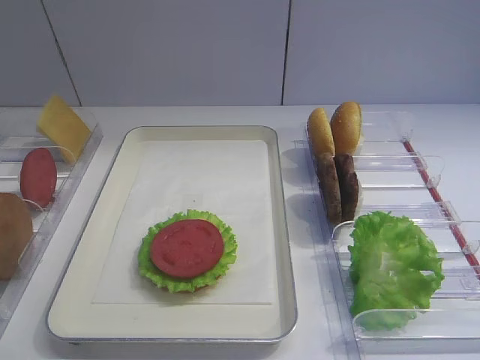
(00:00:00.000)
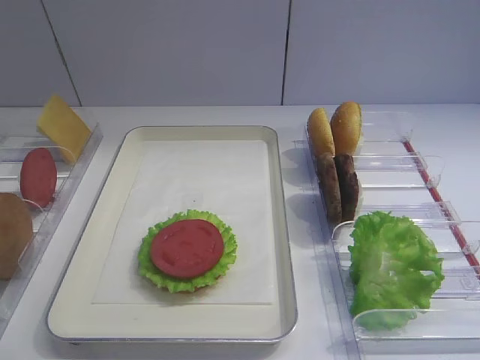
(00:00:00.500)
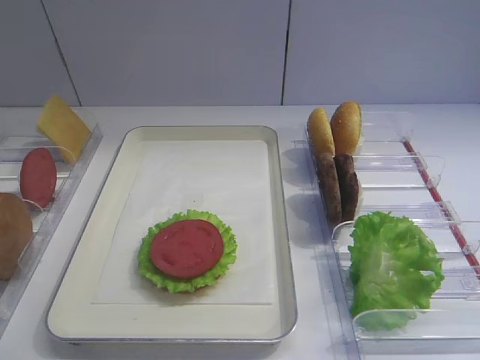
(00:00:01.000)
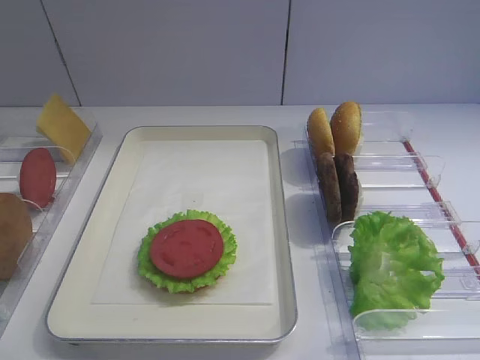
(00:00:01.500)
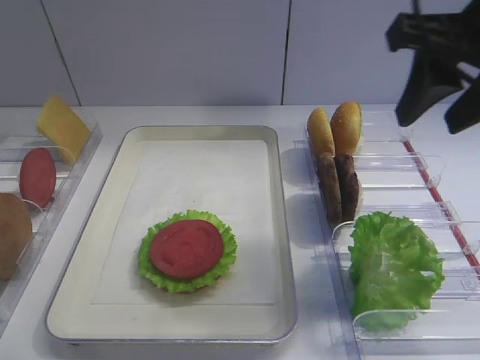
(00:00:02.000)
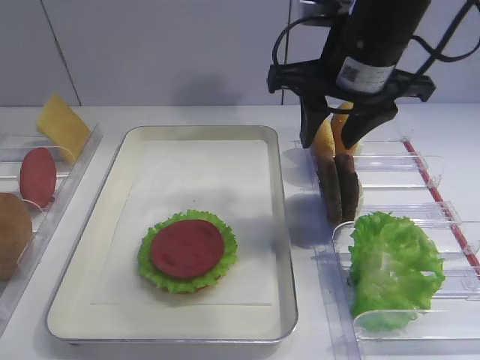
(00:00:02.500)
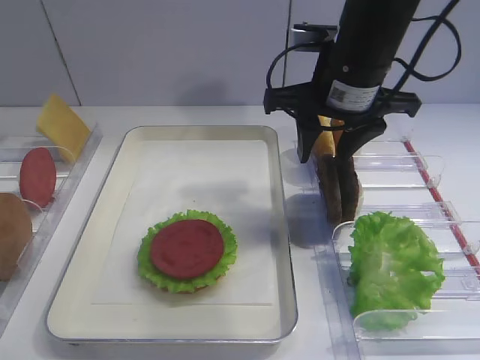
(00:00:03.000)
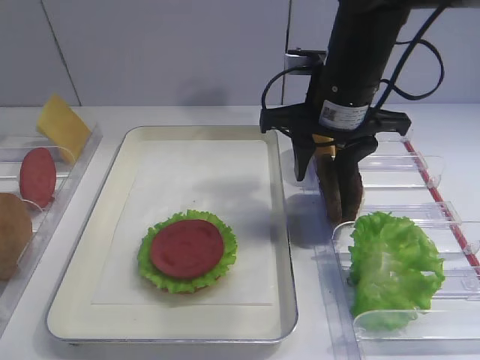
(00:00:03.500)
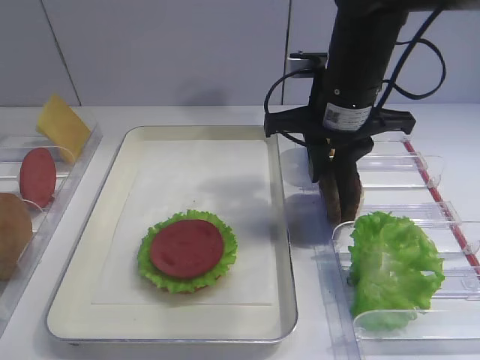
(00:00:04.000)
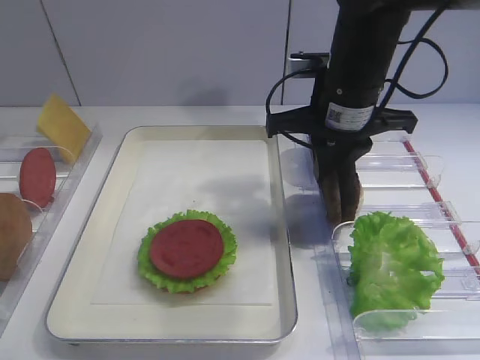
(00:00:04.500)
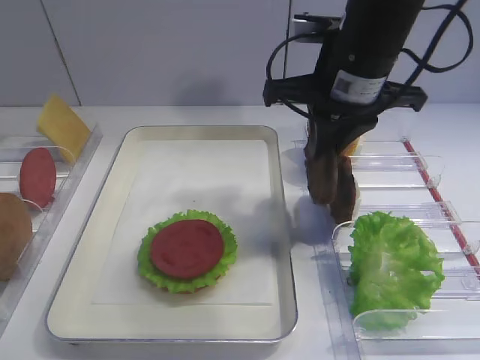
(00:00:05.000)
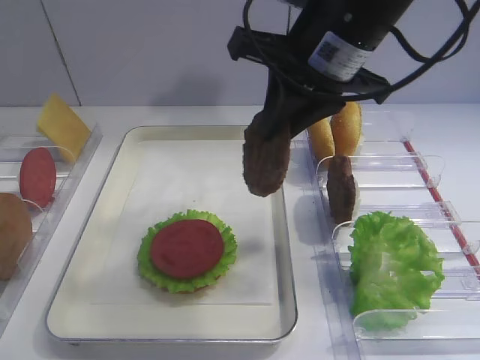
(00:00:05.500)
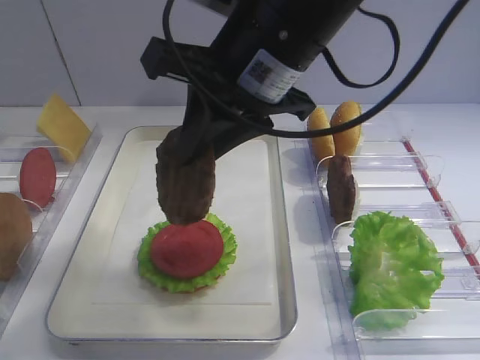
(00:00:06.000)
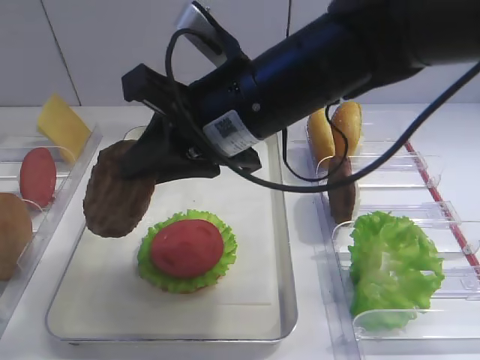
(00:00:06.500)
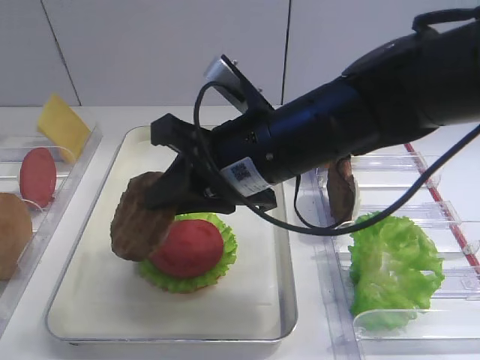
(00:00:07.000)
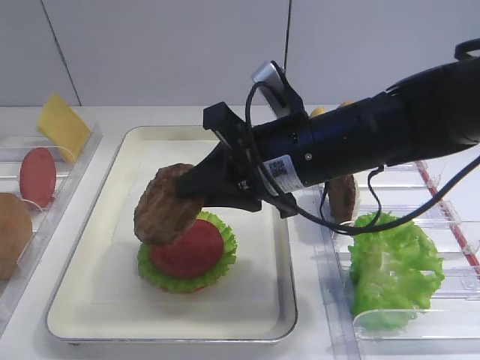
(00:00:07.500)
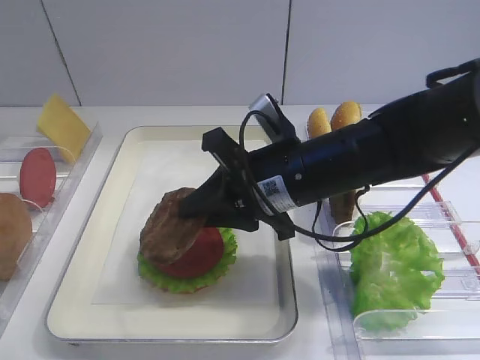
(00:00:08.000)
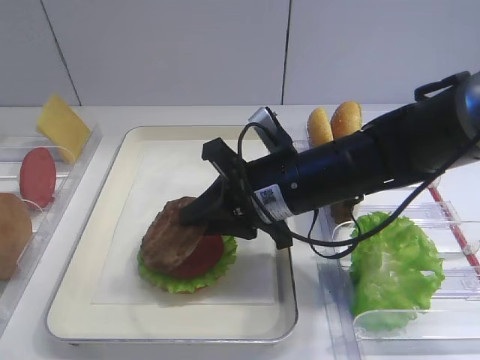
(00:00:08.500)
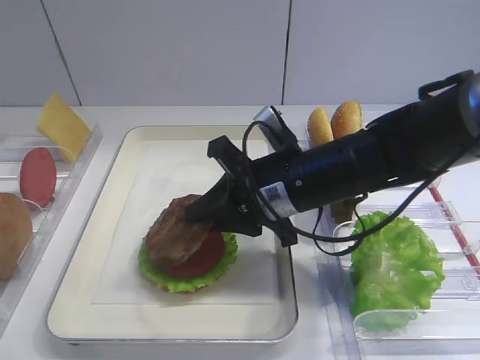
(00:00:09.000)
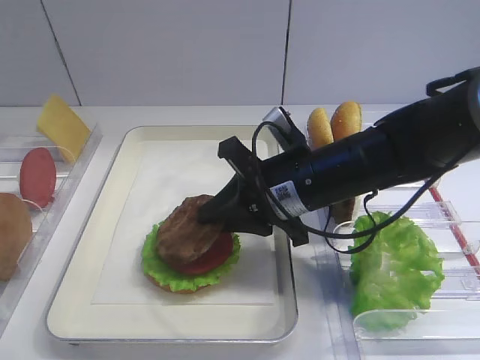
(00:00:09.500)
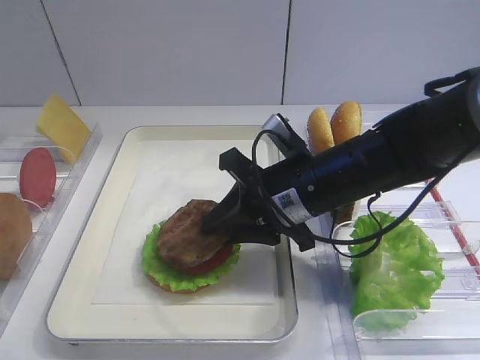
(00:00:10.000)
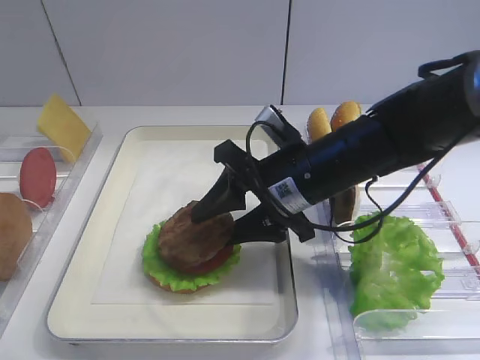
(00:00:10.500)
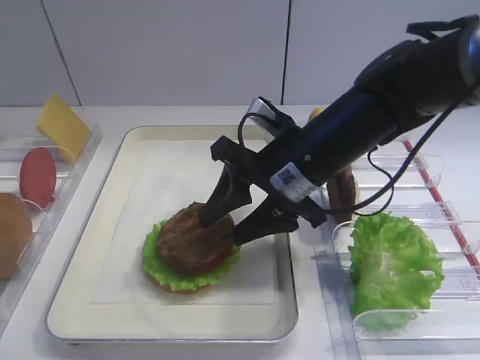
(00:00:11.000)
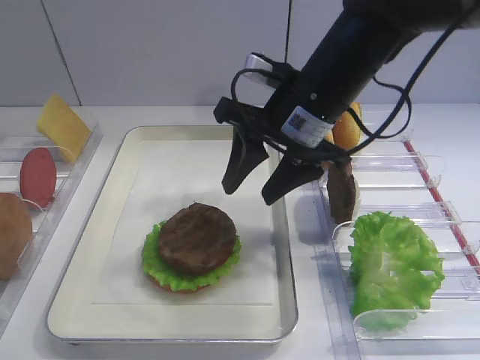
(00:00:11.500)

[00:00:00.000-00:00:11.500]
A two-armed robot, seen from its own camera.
Step, 00:00:00.000 to 00:00:05.000: Pick up the cutlet with the right gripper.
Step, 00:00:05.500 to 00:00:11.000: Place the cutlet on the tomato slice with the right gripper.
00:00:02.000 to 00:00:04.000: The right gripper goes some 15 cm downward, forward and to the left, and closes.
00:00:04.000 to 00:00:06.000: The right gripper is displaced upward, backward and to the left by about 15 cm.
00:00:06.000 to 00:00:07.500: The right gripper goes about 10 cm downward.
00:00:07.500 to 00:00:09.500: The right gripper goes about 5 cm downward.
00:00:09.500 to 00:00:11.500: The right gripper shifts approximately 10 cm upward, and opens its fingers.

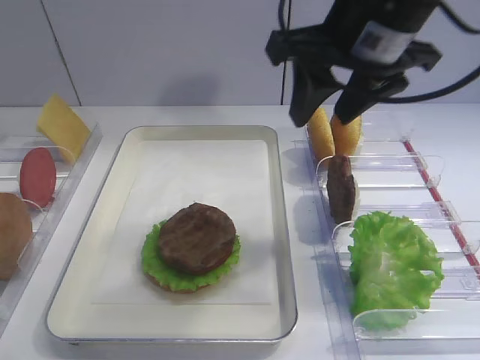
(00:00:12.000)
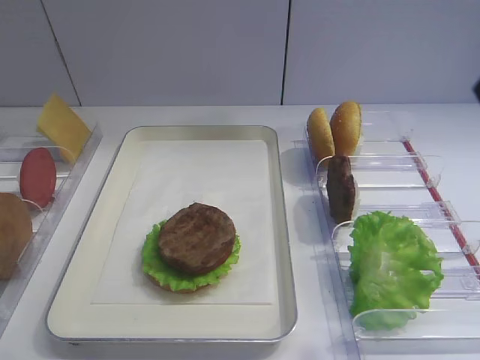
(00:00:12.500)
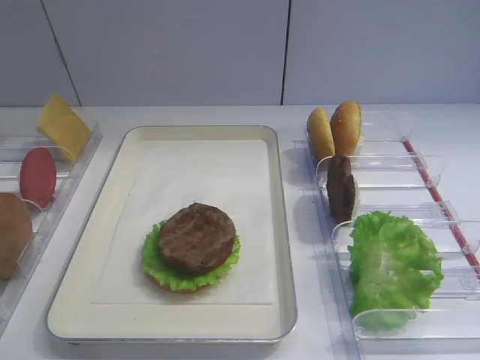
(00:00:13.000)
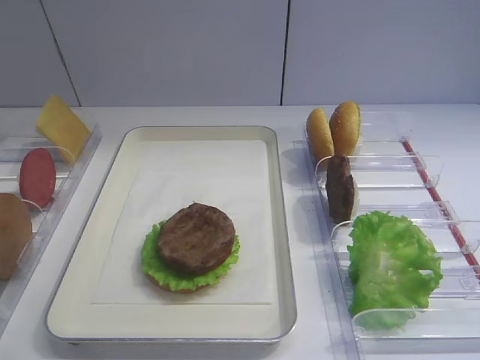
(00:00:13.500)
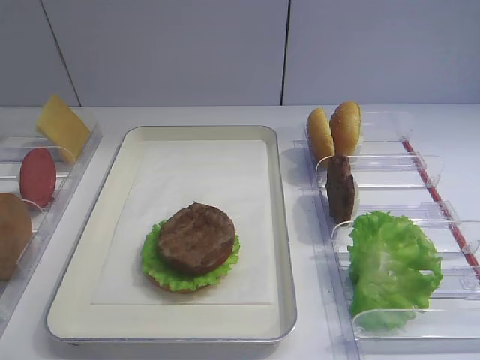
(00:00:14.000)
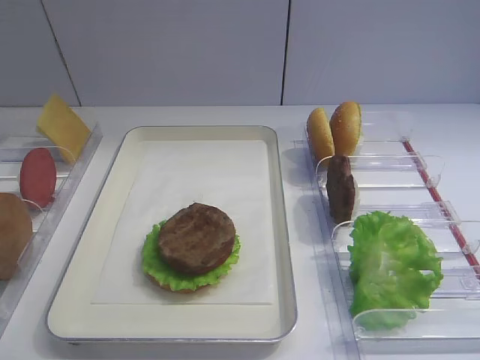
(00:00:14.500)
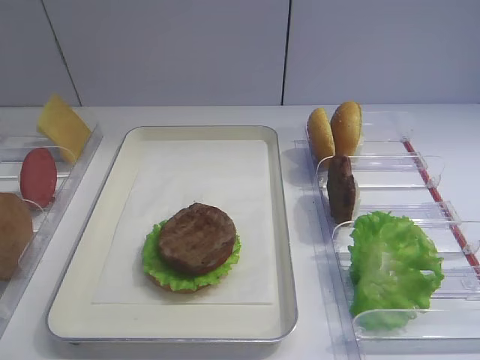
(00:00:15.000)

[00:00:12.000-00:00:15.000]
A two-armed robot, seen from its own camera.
00:00:12.000 to 00:00:13.500: The right gripper is displaced backward and to the right by some 35 cm, and closes its fingers.

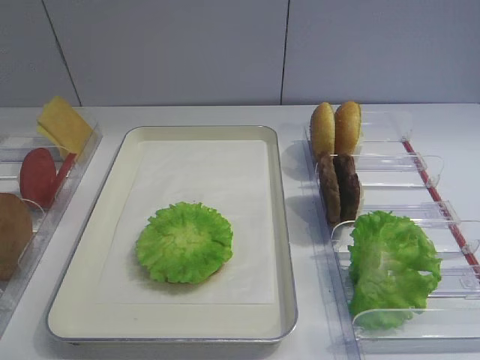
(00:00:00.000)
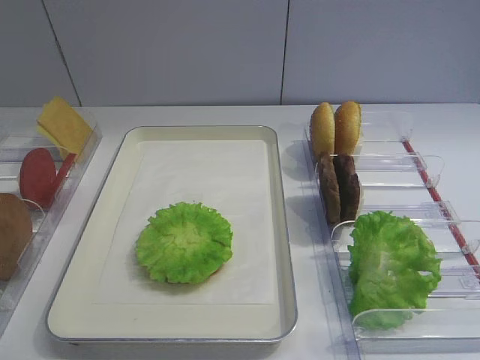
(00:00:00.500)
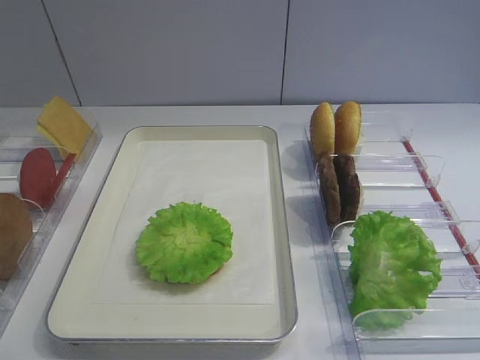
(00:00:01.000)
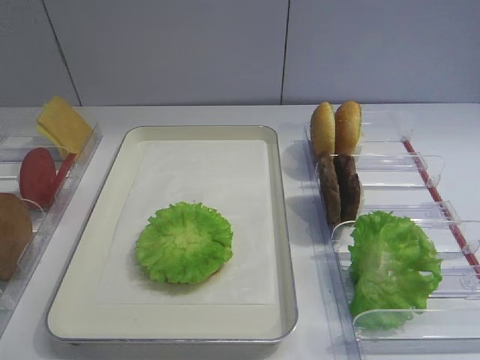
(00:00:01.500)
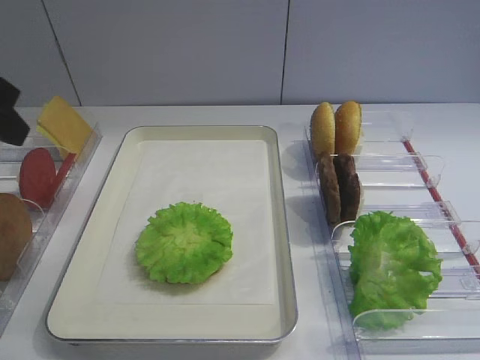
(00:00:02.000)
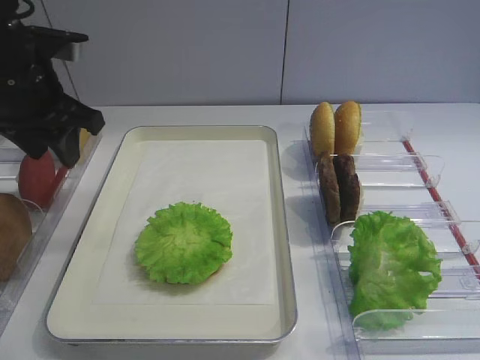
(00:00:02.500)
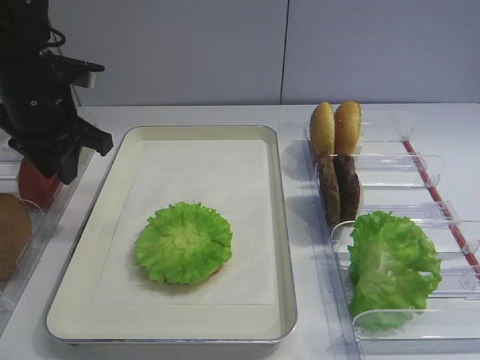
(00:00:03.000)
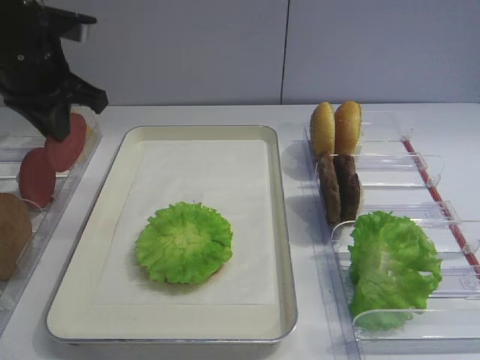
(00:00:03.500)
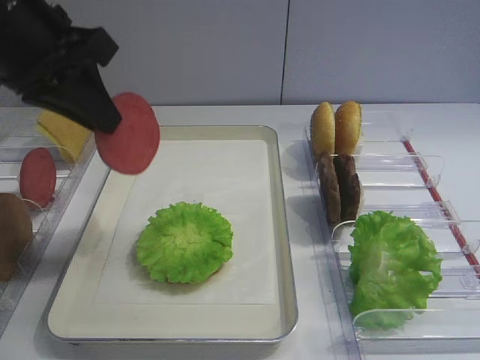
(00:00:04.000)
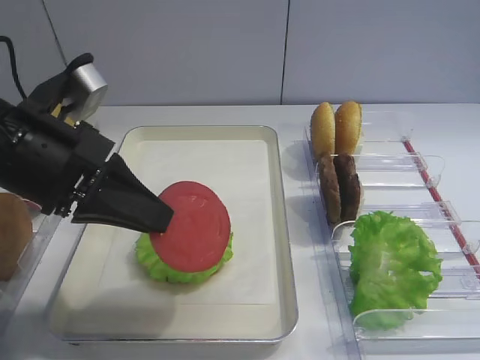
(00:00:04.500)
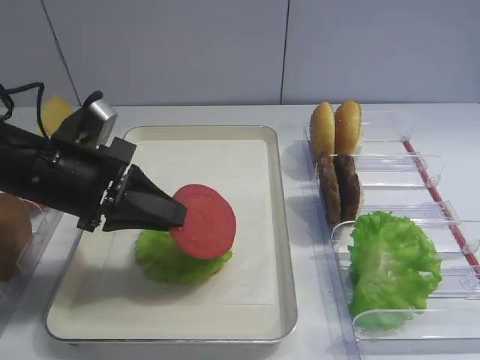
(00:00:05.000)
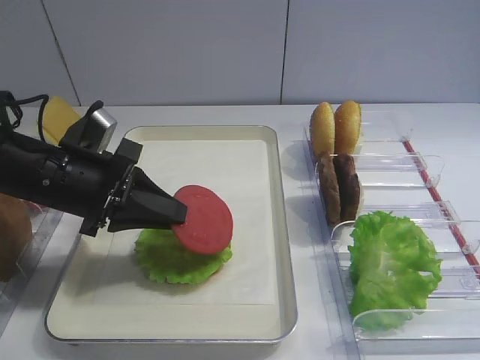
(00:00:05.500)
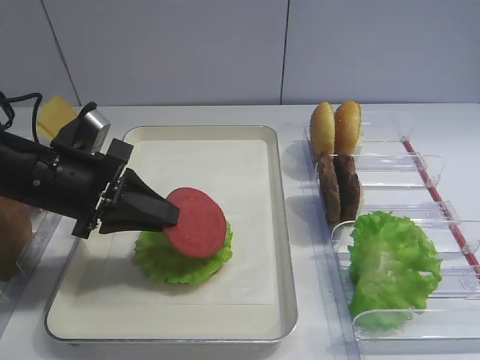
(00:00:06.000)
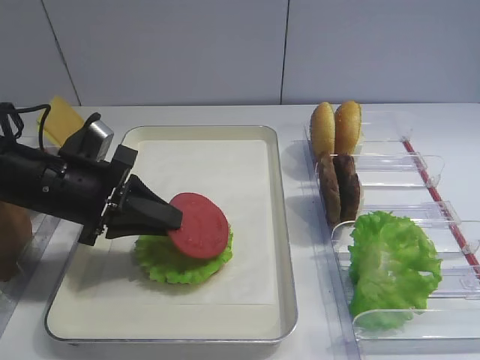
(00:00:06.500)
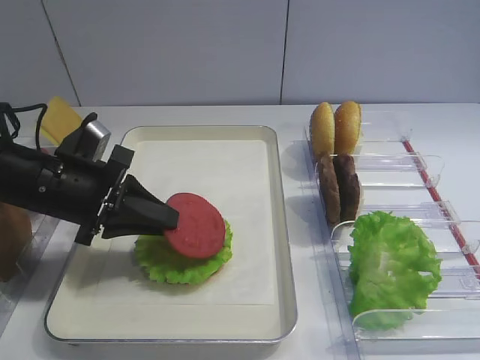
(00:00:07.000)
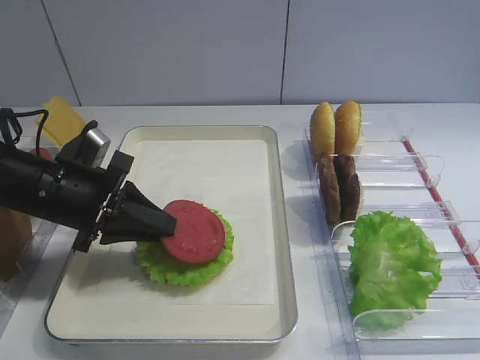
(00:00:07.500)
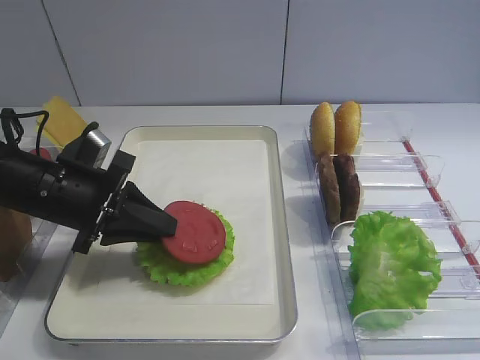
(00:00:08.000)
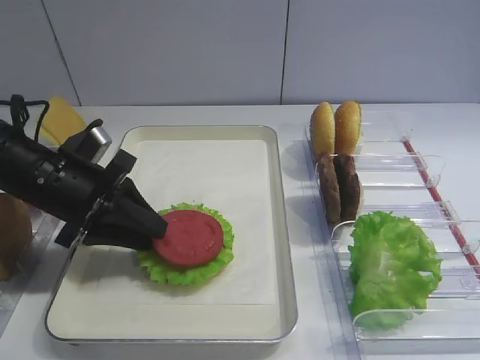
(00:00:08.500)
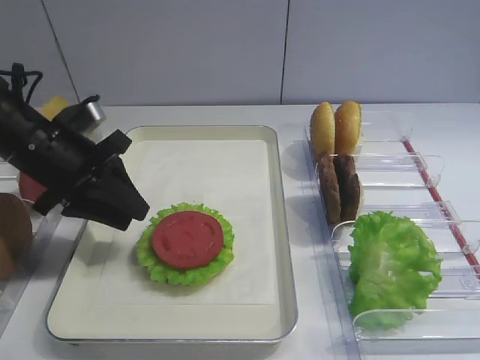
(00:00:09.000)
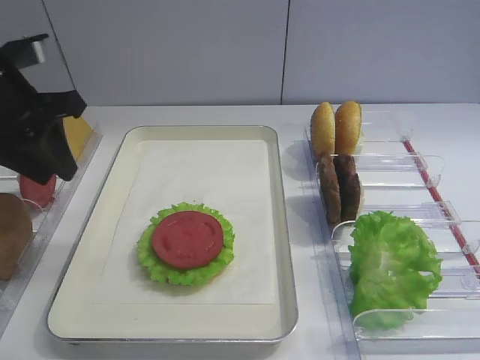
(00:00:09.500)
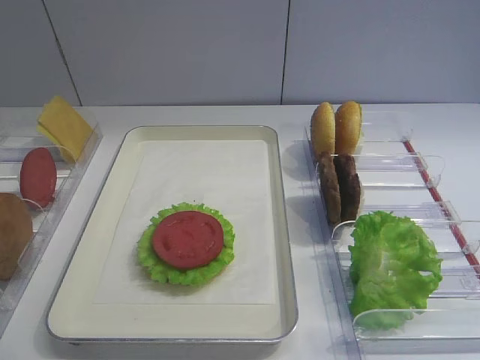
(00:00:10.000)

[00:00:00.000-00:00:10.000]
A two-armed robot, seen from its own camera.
Step, 00:00:00.000 to 00:00:03.000: Pick up the tomato slice with the left gripper.
Step, 00:00:04.000 to 00:00:08.500: Place the tomato slice on the lettuce leaf with the left gripper.
00:00:02.000 to 00:00:04.000: The left gripper is displaced to the right and forward by roughly 10 cm, and closes up.
00:00:04.000 to 00:00:06.000: The left gripper goes about 15 cm downward.
00:00:06.000 to 00:00:08.000: There are only small adjustments of the grippers.
00:00:08.000 to 00:00:10.000: The left gripper heads upward, to the left and backward, covering roughly 20 cm, and opens its fingers.

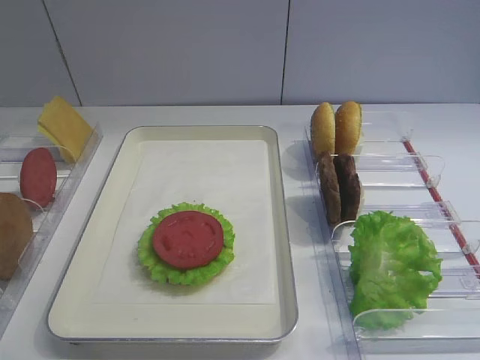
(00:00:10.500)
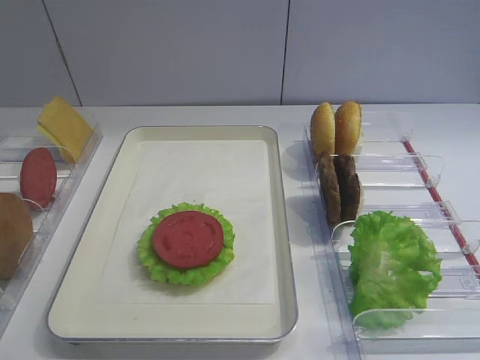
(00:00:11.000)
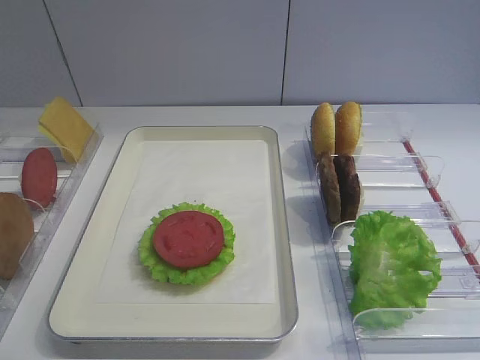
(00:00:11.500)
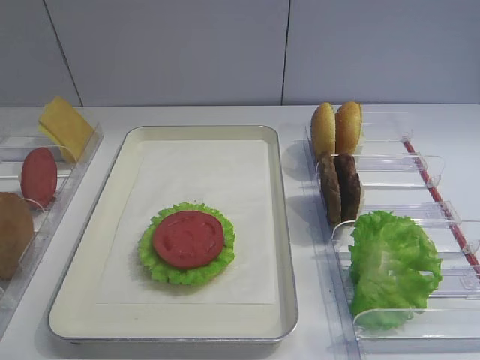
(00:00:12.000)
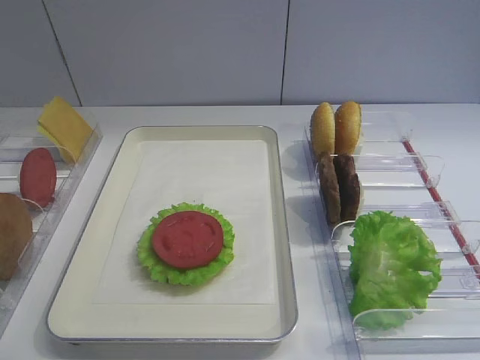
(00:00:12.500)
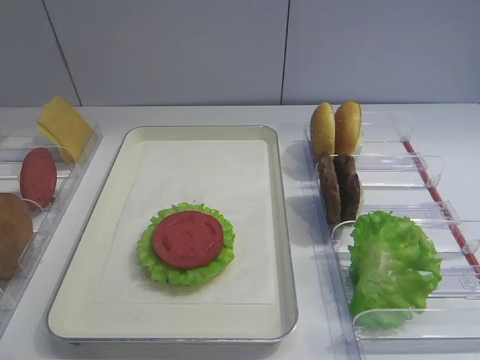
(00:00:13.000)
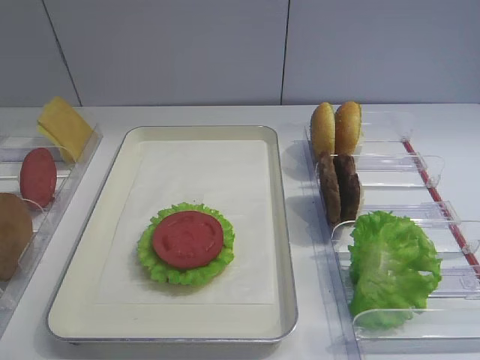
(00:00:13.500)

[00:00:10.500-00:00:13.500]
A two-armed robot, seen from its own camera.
00:00:12.000 to 00:00:13.500: Both grippers stay put.
